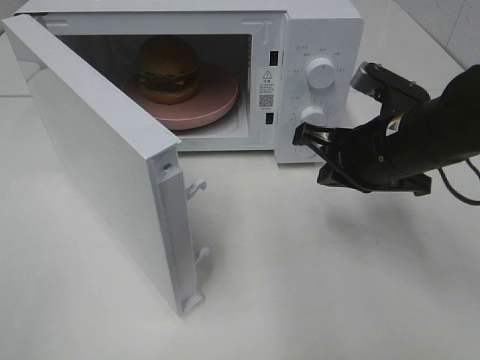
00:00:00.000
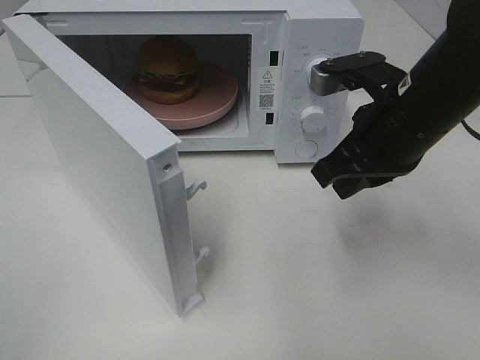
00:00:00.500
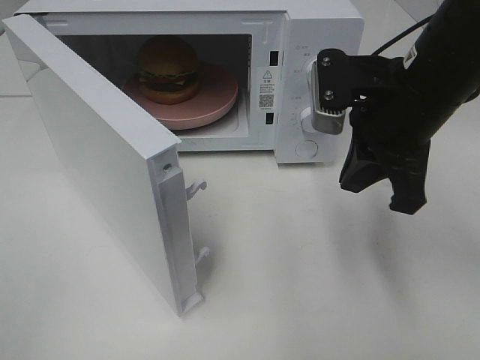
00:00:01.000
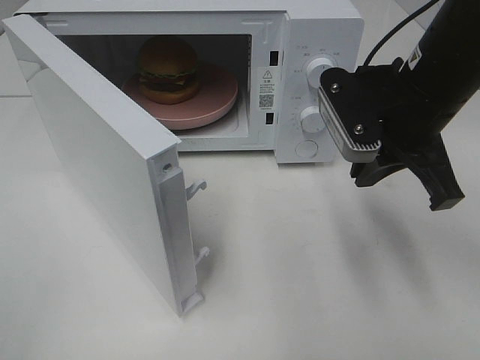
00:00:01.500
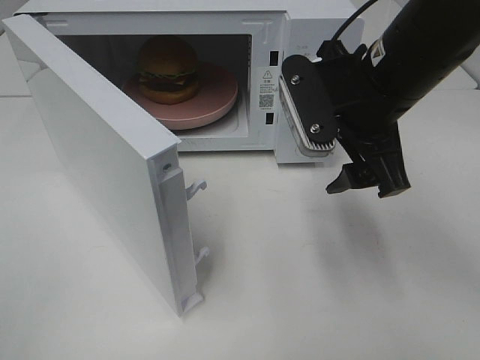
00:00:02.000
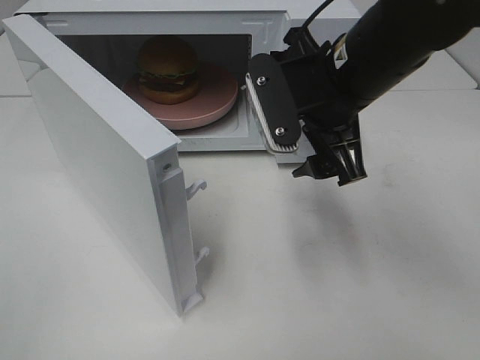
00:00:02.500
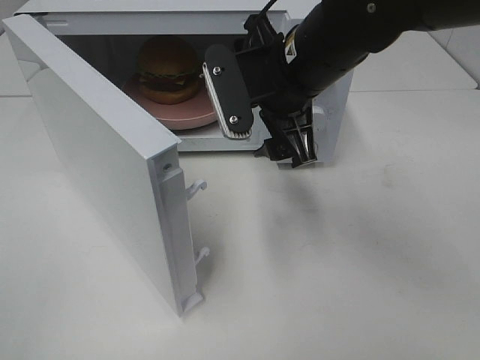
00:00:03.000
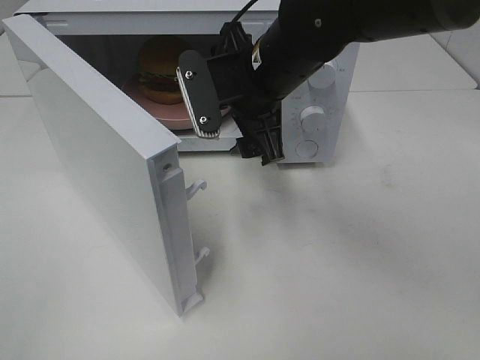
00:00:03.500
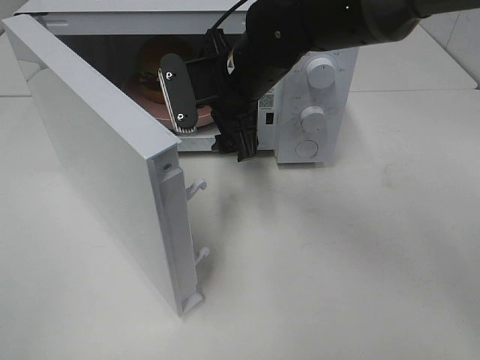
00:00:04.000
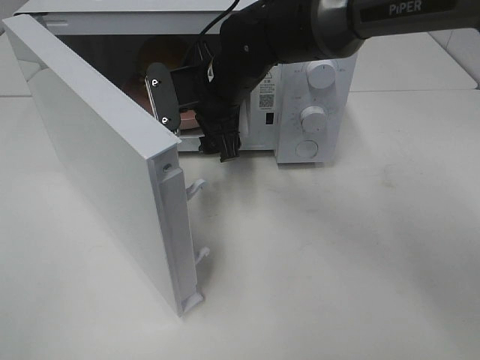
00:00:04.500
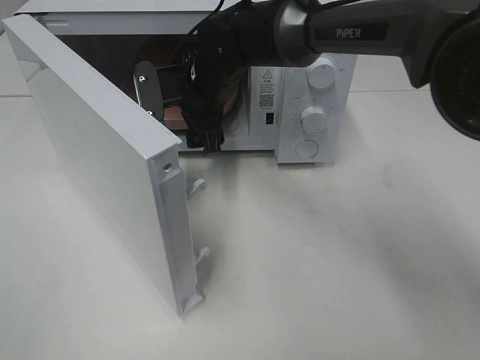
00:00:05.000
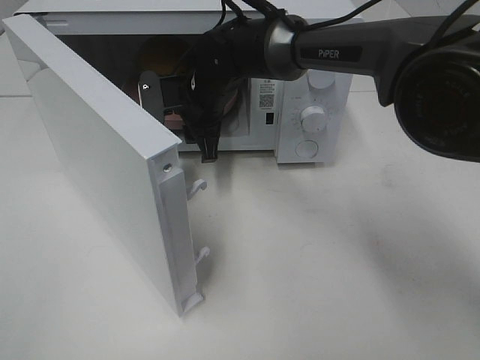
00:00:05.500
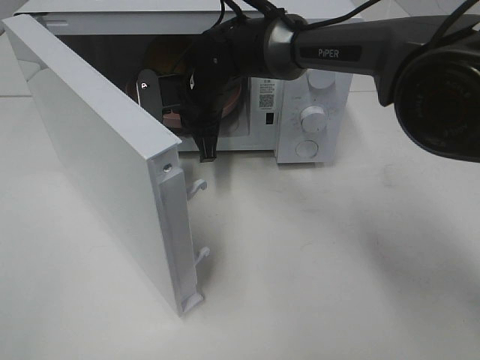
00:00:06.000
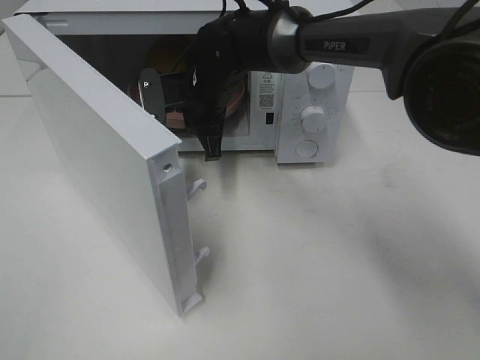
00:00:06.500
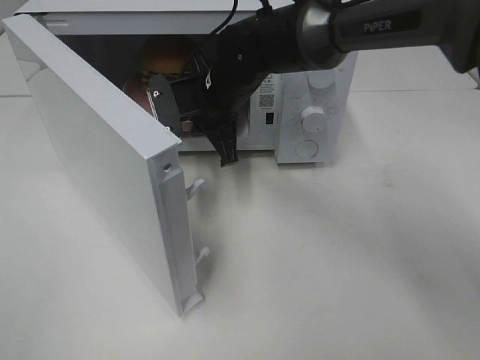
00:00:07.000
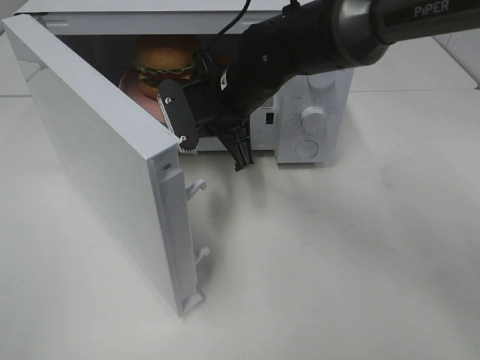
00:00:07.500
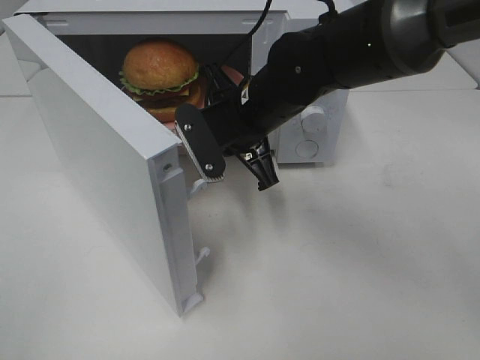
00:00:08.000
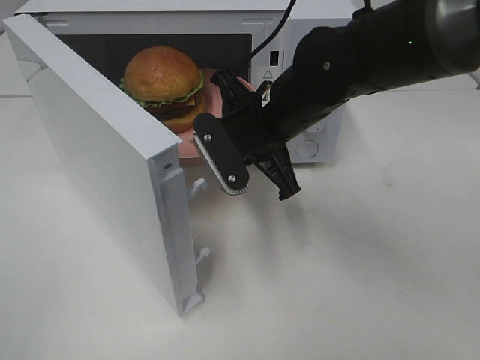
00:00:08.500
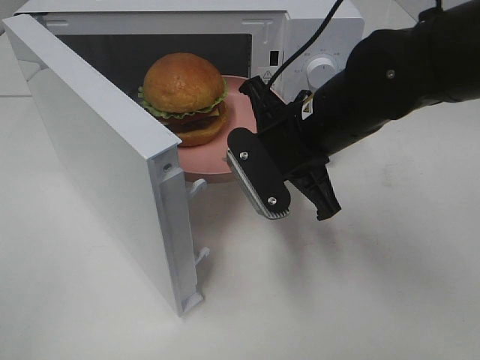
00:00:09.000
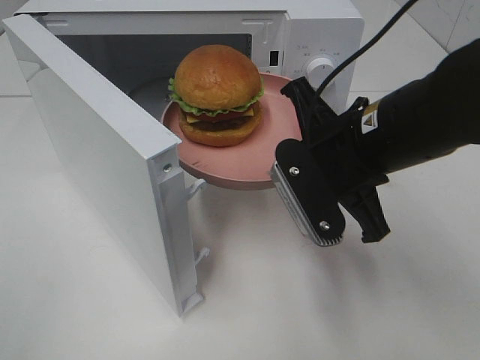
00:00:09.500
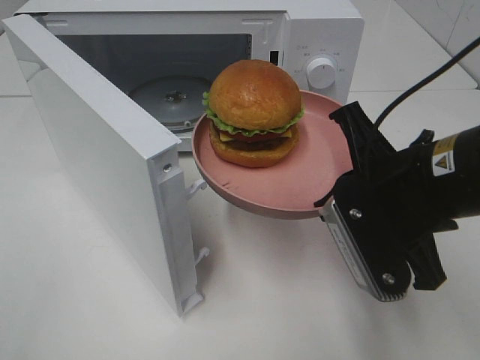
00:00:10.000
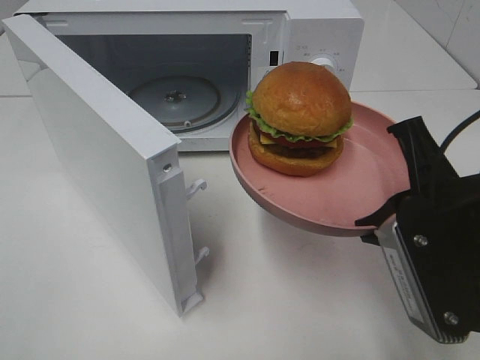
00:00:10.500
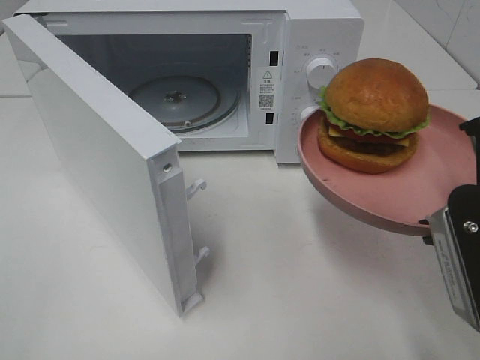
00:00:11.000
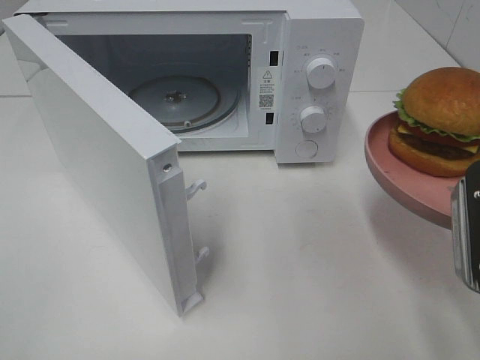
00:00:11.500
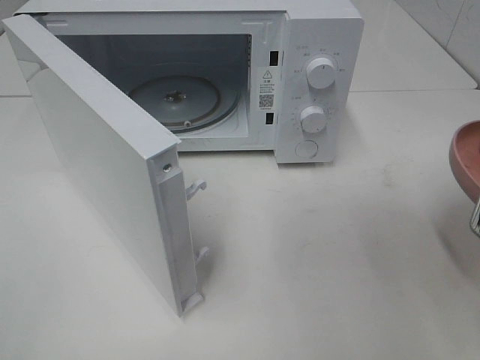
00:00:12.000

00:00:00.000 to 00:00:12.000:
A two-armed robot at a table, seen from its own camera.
Task of the whole recording: Heat the burger.
Step, 00:00:00.000 to 00:00:06.000: Right hand: grab the plate with the hamburger.
00:00:00.000 to 00:00:02.000: The right gripper heads upward, covering about 5 cm, and opens.
00:00:02.000 to 00:00:04.000: The right gripper shifts approximately 15 cm to the left and forward.
00:00:04.000 to 00:00:06.000: The right gripper moves forward and downward, some 10 cm, and closes.
00:00:06.000 to 00:00:08.000: The right gripper goes about 10 cm backward and to the right.
00:00:08.000 to 00:00:10.000: The right gripper travels backward and to the right by approximately 20 cm.
00:00:10.000 to 00:00:12.000: The right gripper heads to the right and backward, covering approximately 10 cm.

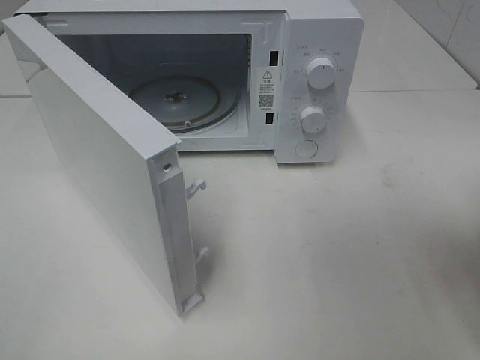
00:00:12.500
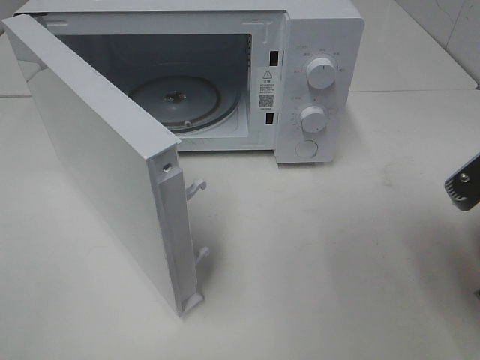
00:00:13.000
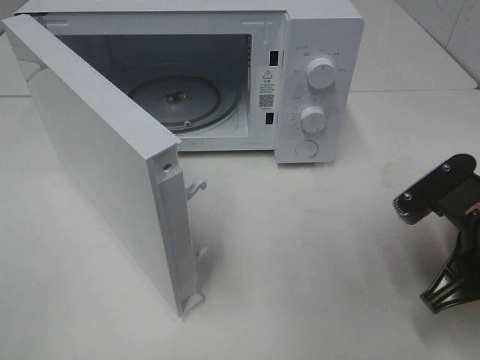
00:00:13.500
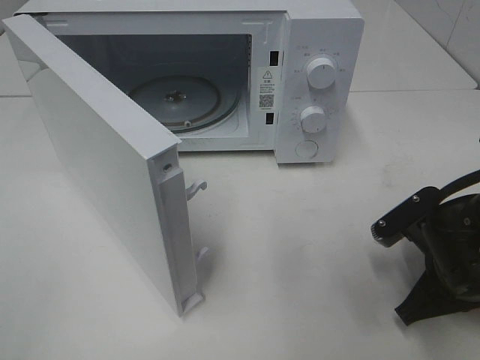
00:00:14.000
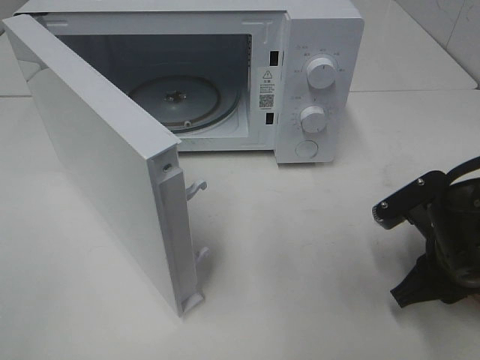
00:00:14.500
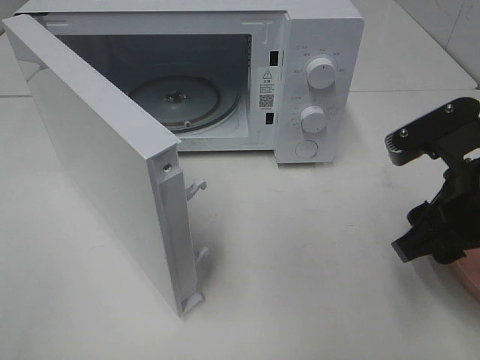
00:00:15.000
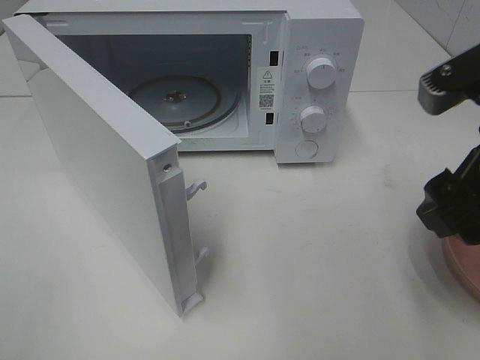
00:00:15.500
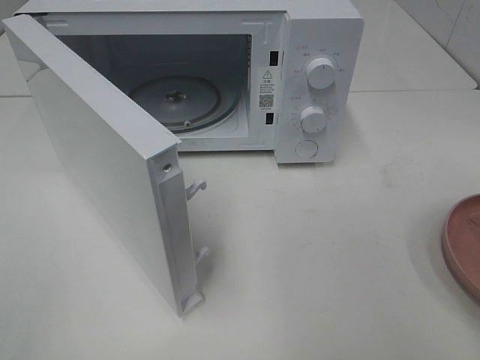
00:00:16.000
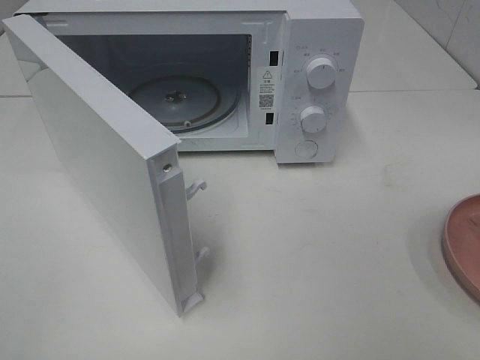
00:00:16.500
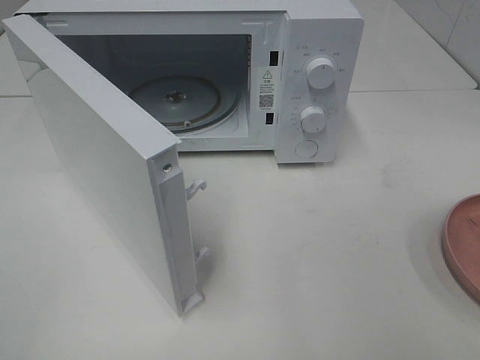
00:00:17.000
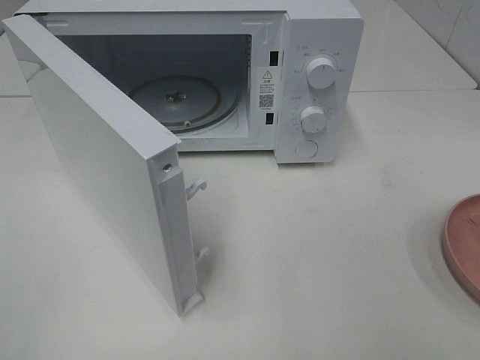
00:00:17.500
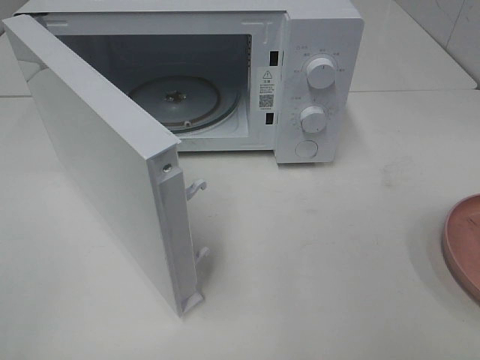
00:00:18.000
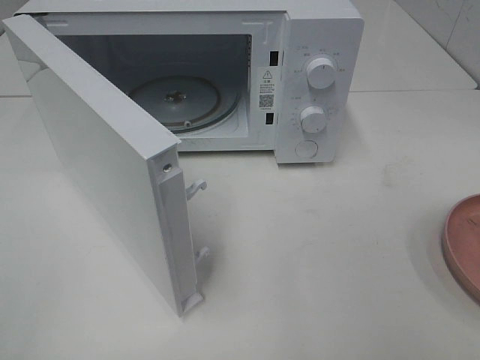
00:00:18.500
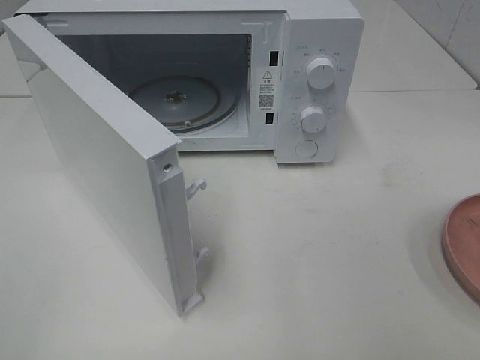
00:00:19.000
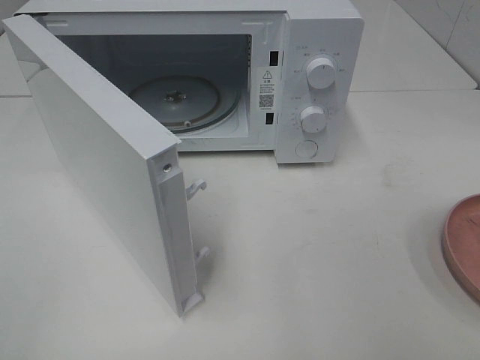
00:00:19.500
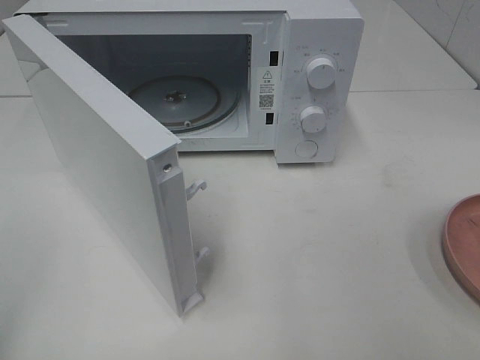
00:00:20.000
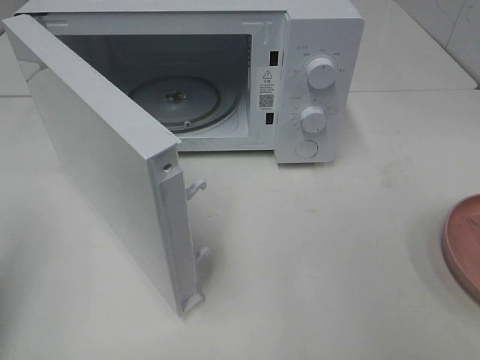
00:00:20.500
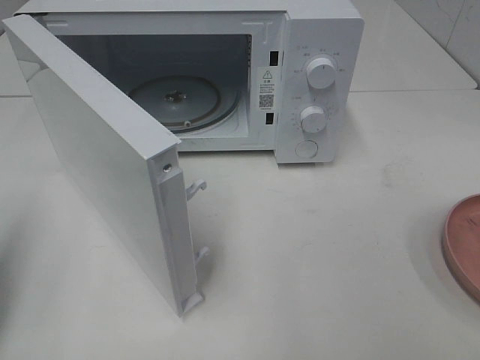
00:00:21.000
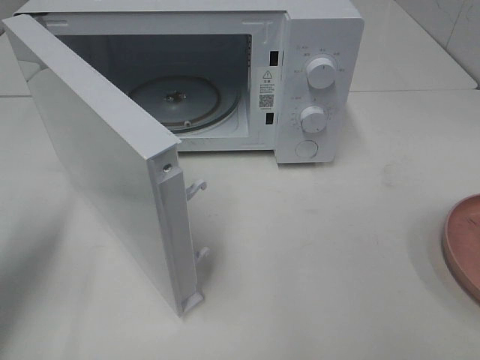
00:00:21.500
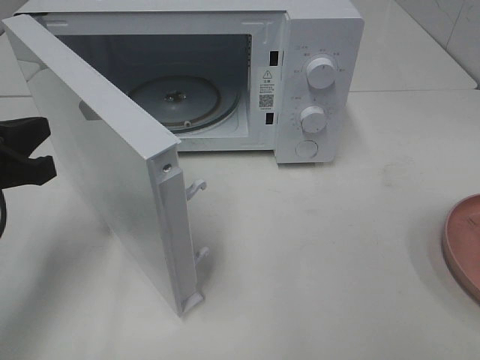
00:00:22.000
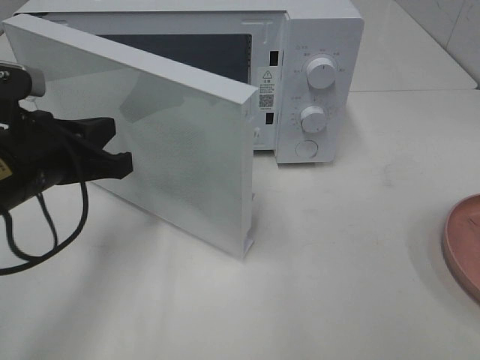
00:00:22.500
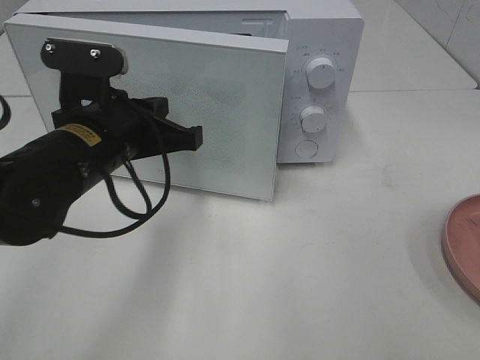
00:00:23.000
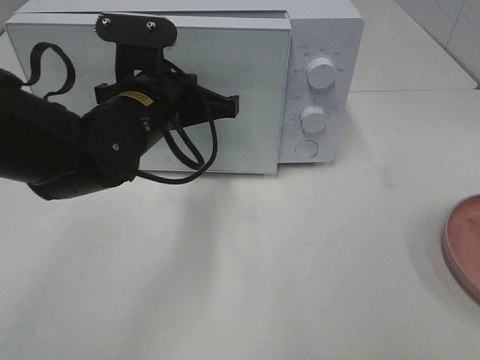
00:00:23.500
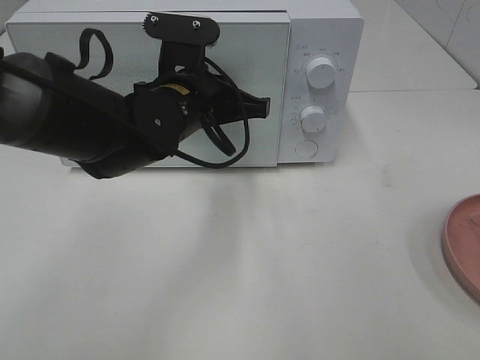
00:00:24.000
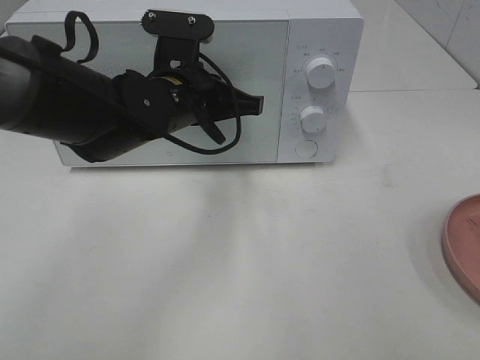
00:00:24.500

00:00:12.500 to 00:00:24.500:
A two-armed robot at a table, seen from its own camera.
Task of the whole recording: Heat the burger.
Step, 00:00:12.500 to 00:00:15.000: Right hand: place the plate on the table.
00:00:12.500 to 00:00:14.500: The right gripper goes roughly 15 cm downward and forward, and opens its fingers.
00:00:14.500 to 00:00:16.500: The right gripper goes some 25 cm upward and backward, and opens.
00:00:20.500 to 00:00:22.500: The left gripper is displaced to the right, forward and downward by some 20 cm.
00:00:22.500 to 00:00:24.500: The left gripper shifts some 15 cm to the right and forward.

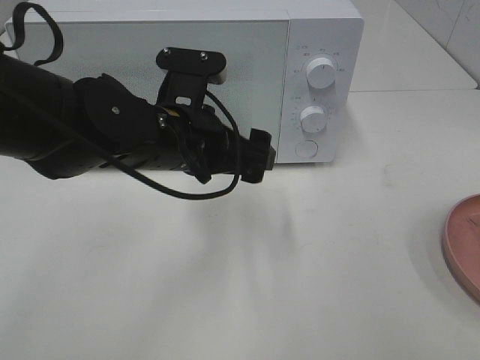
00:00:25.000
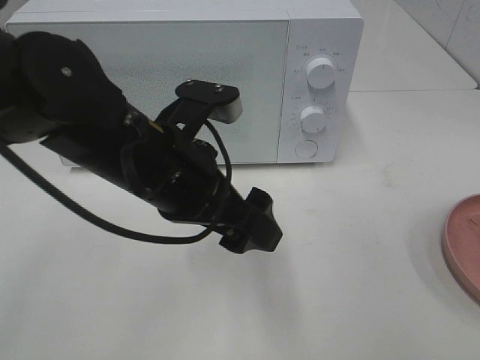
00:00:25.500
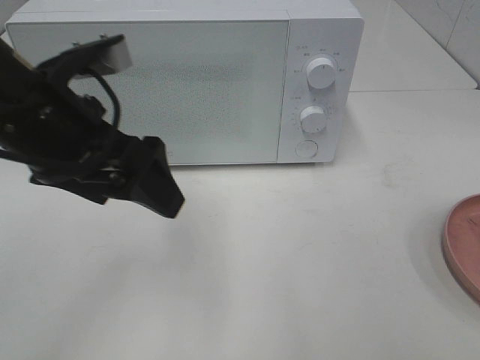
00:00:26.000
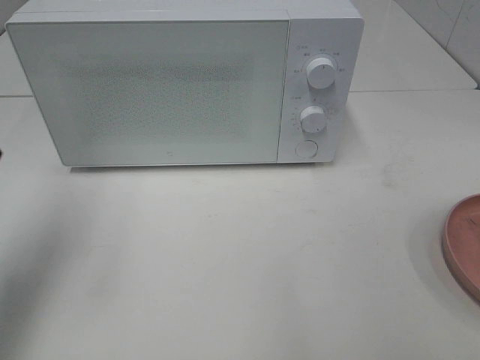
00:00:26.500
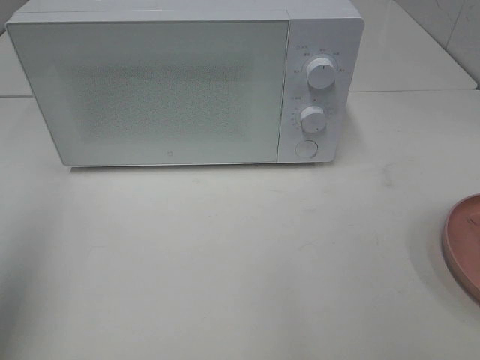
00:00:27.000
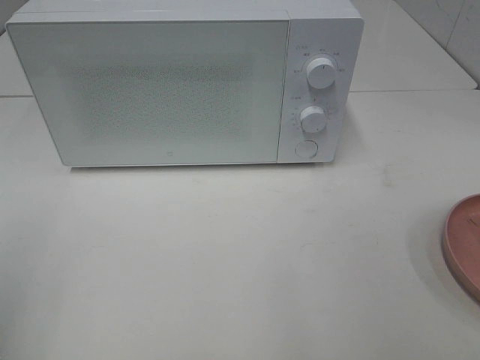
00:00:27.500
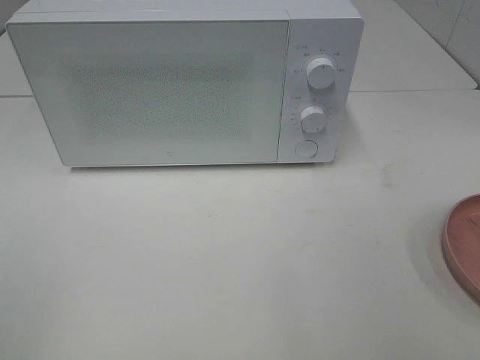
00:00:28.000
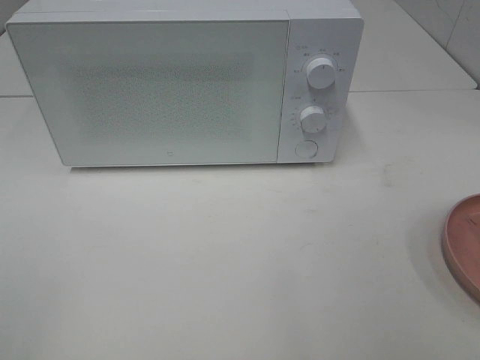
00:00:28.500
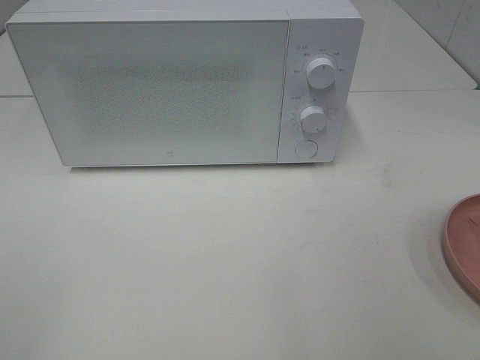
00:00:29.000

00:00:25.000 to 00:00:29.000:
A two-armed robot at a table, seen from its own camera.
Task of the whole recording: Heat the burger.
00:00:25.000 to 00:00:27.000: The left gripper moves to the left, upward and backward, about 35 cm.
00:00:27.000 to 00:00:29.000: The left gripper moves backward and downward, about 15 cm.
